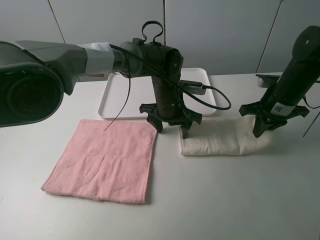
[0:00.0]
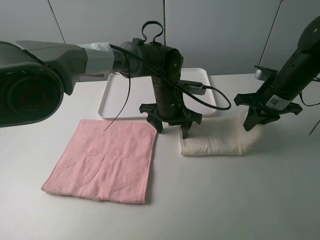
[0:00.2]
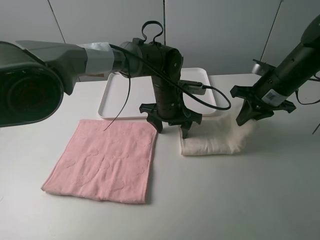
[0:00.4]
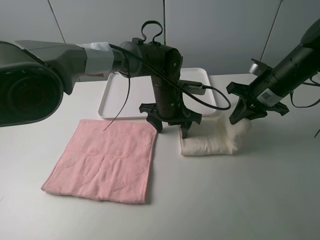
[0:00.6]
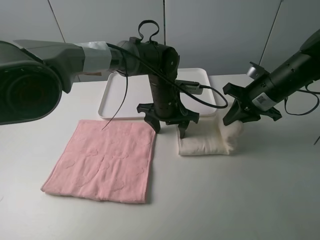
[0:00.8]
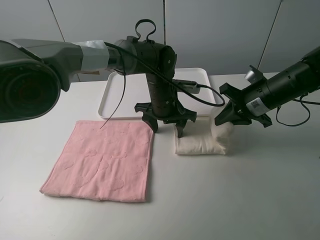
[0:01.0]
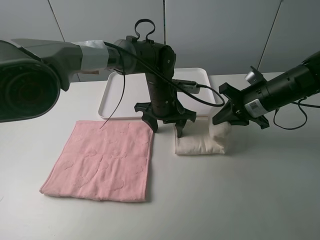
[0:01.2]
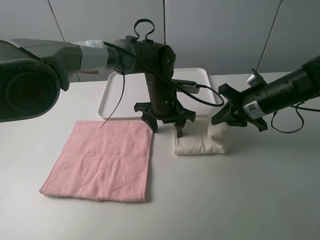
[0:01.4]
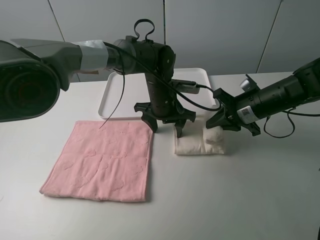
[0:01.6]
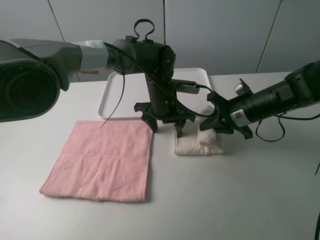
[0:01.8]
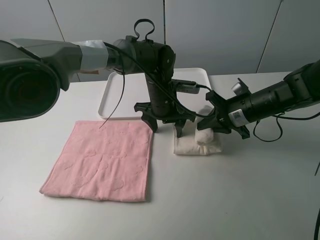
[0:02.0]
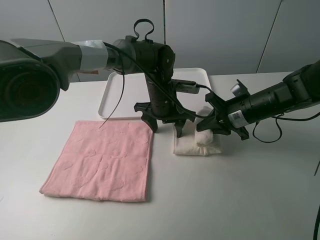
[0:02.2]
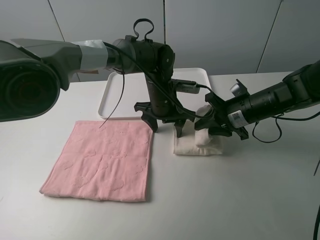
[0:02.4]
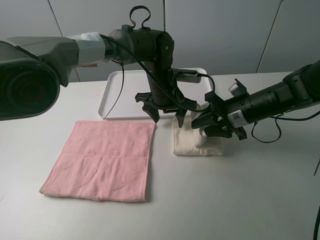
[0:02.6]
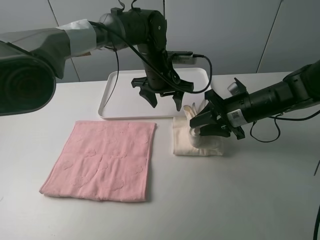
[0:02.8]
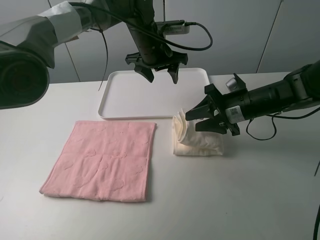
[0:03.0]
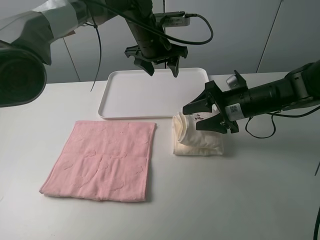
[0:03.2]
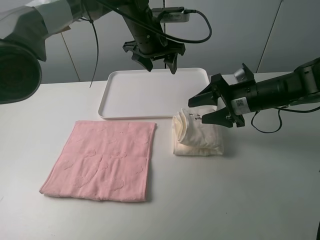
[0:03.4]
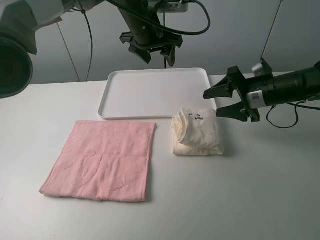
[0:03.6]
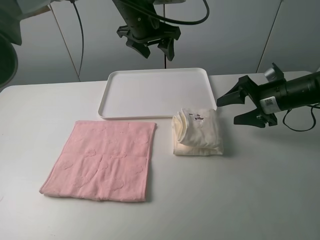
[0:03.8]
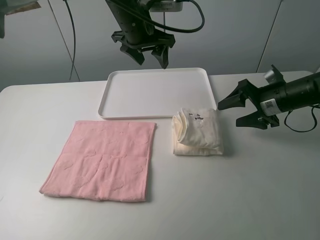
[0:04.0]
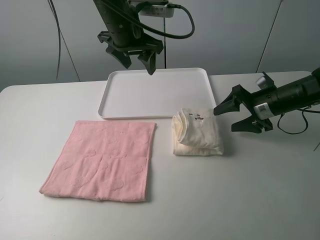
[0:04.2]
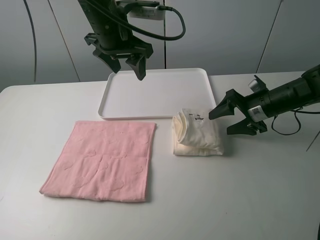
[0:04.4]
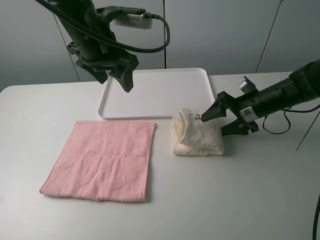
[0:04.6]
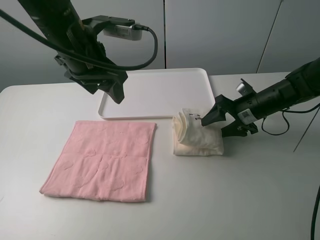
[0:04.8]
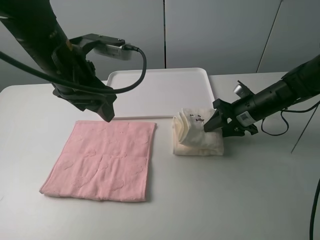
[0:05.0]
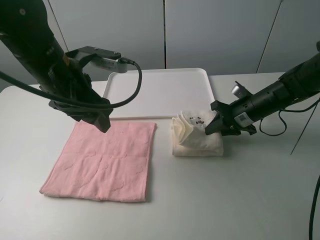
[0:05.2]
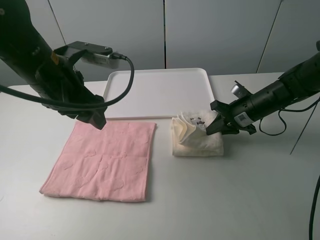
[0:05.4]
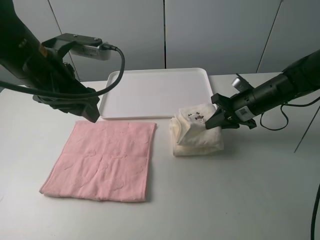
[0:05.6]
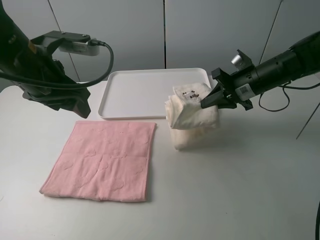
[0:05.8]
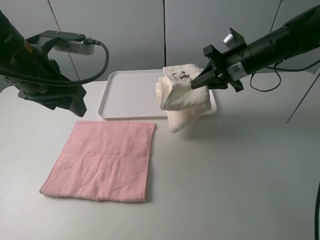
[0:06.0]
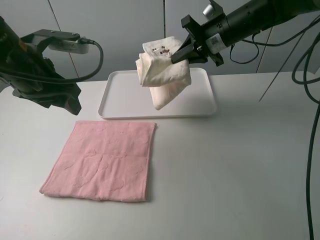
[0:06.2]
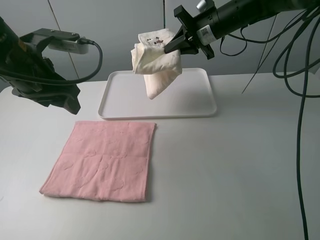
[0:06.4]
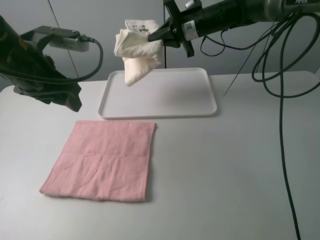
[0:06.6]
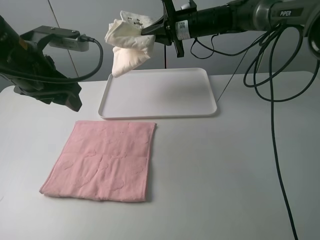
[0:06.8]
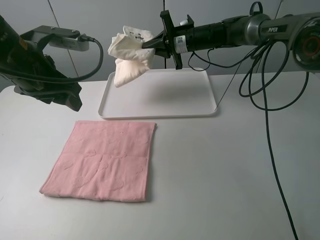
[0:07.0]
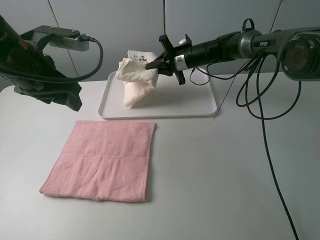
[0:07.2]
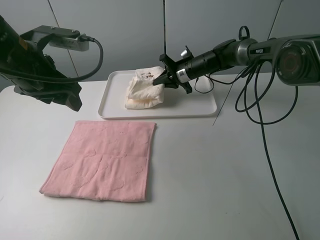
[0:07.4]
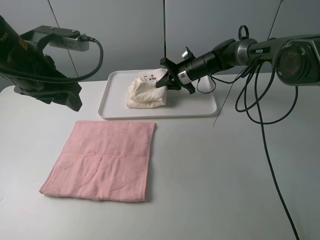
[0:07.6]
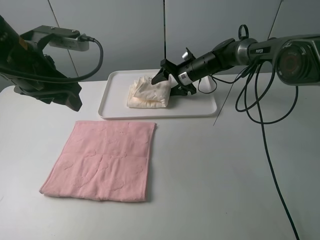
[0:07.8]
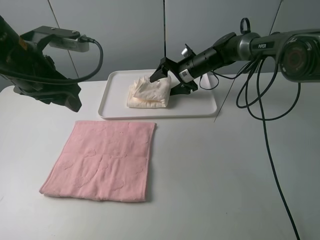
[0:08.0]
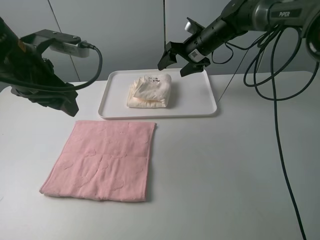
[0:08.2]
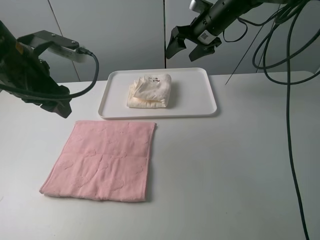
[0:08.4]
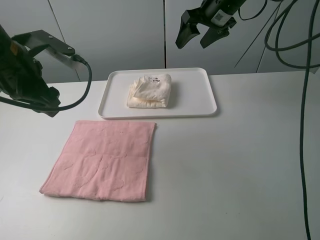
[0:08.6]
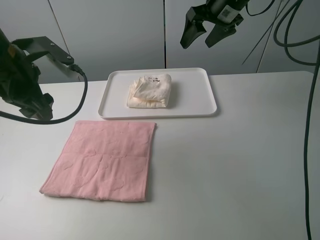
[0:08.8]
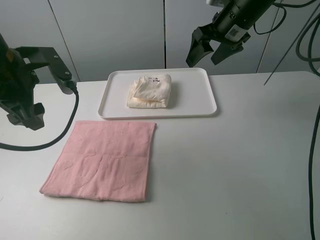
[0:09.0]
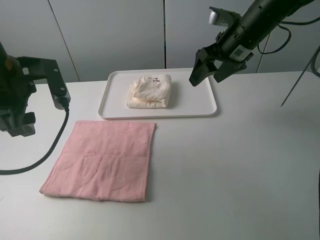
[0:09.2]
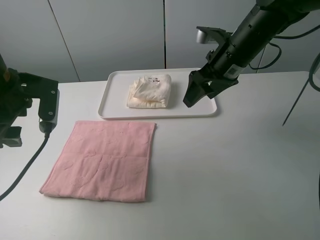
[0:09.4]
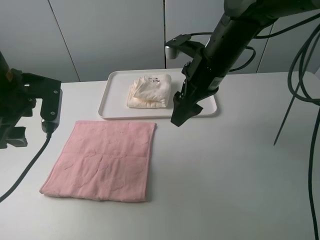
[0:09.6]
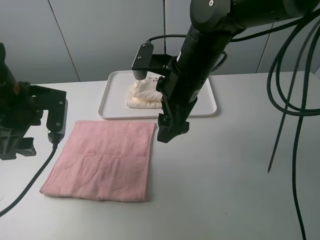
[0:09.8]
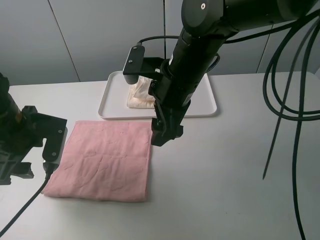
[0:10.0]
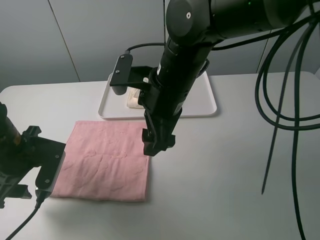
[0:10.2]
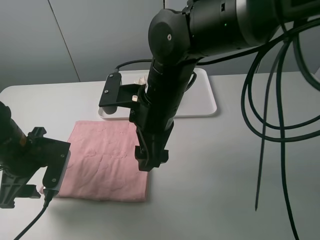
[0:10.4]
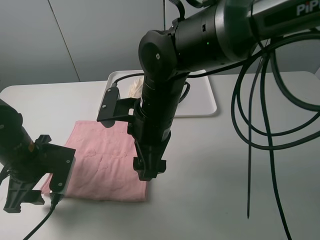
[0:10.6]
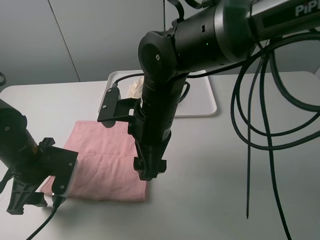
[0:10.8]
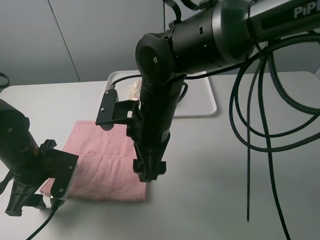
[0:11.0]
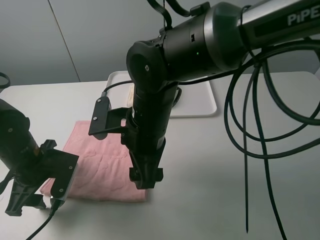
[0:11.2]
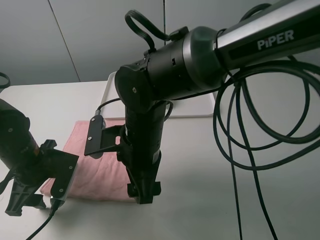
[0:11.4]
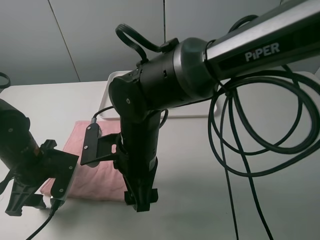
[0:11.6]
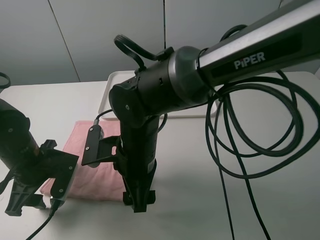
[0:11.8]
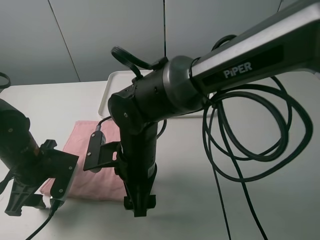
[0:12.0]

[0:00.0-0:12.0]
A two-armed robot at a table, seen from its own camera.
Task of the whole recording: fold one of the towels by two grippers and place it on the tray,then fold another towel by two grippers and place it on the folded towel.
Step, 0:00.0 to 0:03.0: Fold the white towel from right to left with right gripper.
Step, 0:03.2 to 0:05.2: Grasp the white towel with the right gripper.
Step, 0:05.4 to 0:08.0: Move the white towel to the plate with the right gripper.
0:00.0 to 0:01.6: The right gripper shifts roughly 5 cm to the left.
0:01.6 to 0:03.0: The right gripper opens up, while the left gripper shifts some 15 cm upward and forward.
0:03.0 to 0:04.4: The left gripper is displaced to the left, backward and upward by approximately 10 cm. The right gripper heads to the right, covering roughly 5 cm.
0:04.4 to 0:06.0: The right gripper heads upward and to the left, covering about 10 cm, and closes up. The left gripper is displaced to the left and backward by about 15 cm.
0:06.0 to 0:07.6: The right gripper is displaced forward, downward and to the left by roughly 20 cm.
0:07.6 to 0:09.0: The right gripper moves upward and backward, approximately 20 cm, and opens up.
0:09.0 to 0:10.4: The left gripper is displaced downward and backward by roughly 15 cm, while the right gripper shifts some 25 cm to the left, backward and downward.
0:10.4 to 0:12.0: The right gripper moves downward, approximately 10 cm.

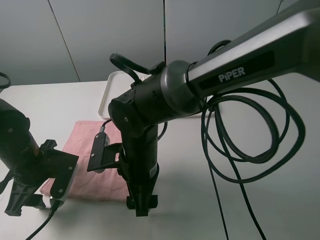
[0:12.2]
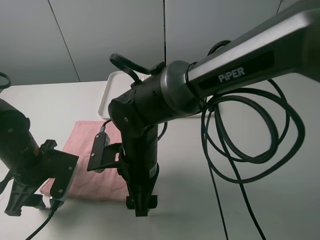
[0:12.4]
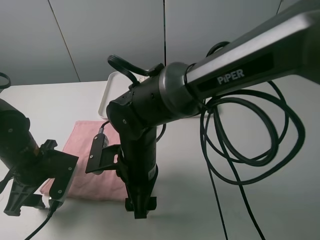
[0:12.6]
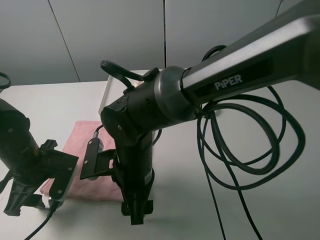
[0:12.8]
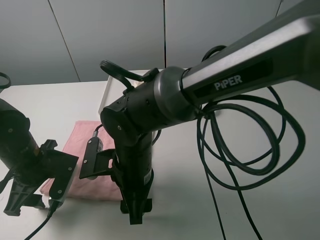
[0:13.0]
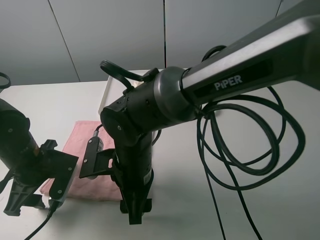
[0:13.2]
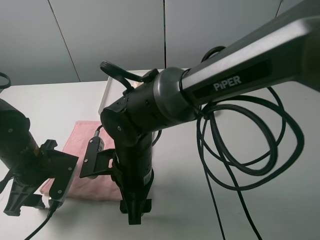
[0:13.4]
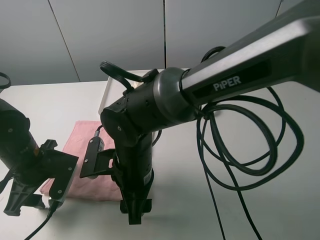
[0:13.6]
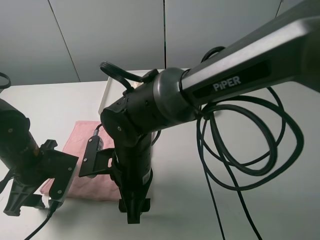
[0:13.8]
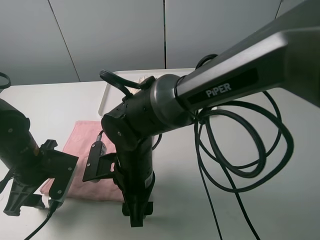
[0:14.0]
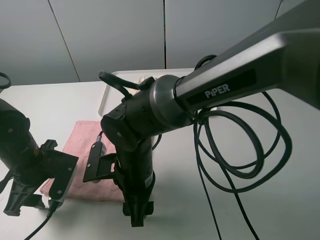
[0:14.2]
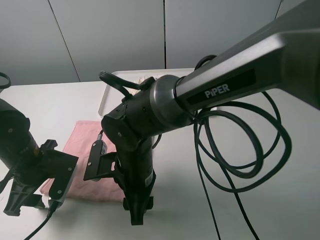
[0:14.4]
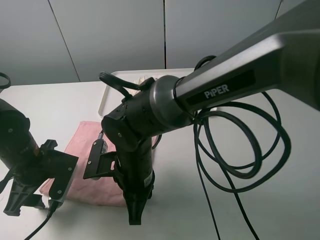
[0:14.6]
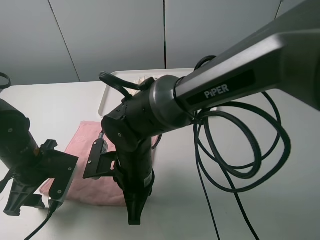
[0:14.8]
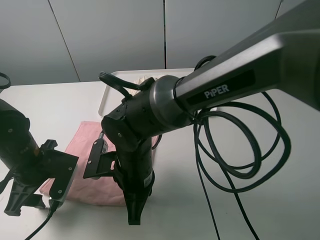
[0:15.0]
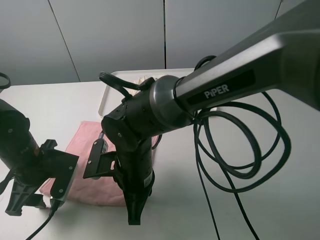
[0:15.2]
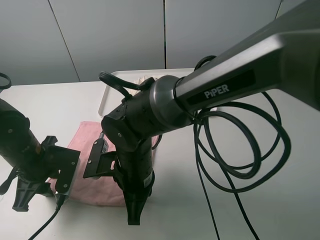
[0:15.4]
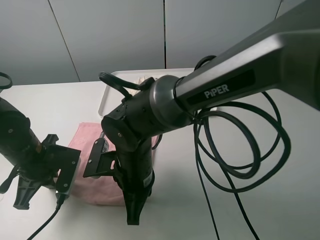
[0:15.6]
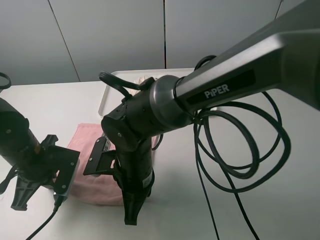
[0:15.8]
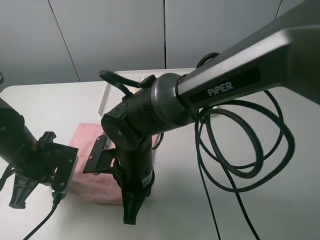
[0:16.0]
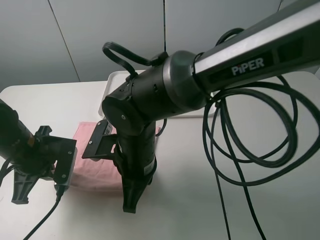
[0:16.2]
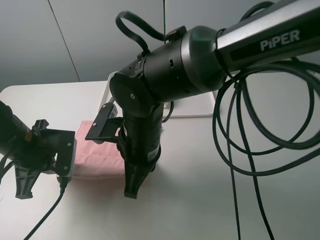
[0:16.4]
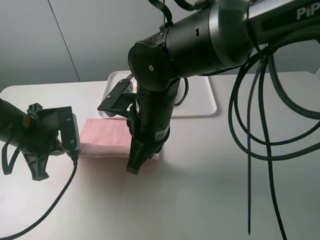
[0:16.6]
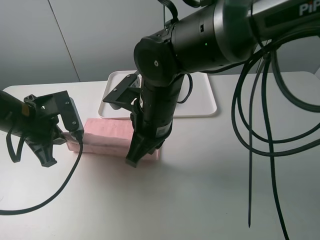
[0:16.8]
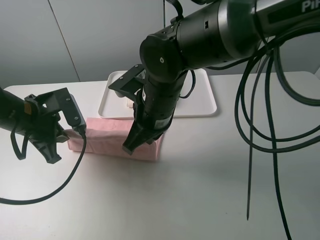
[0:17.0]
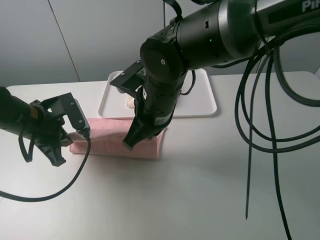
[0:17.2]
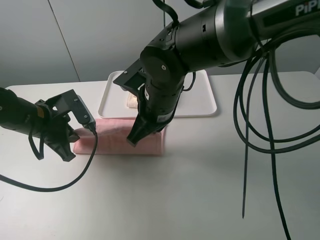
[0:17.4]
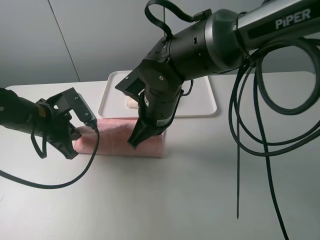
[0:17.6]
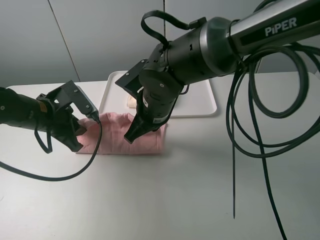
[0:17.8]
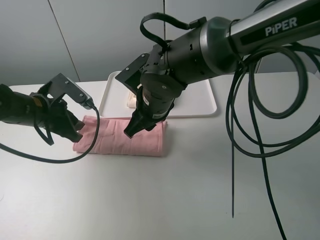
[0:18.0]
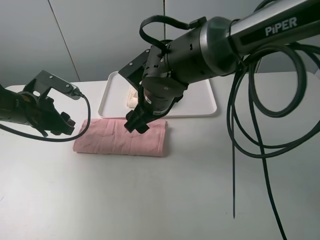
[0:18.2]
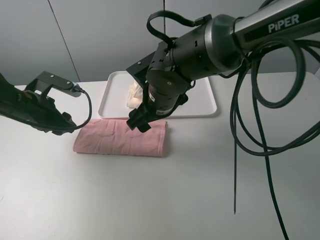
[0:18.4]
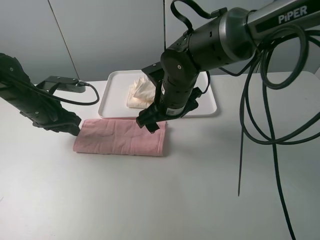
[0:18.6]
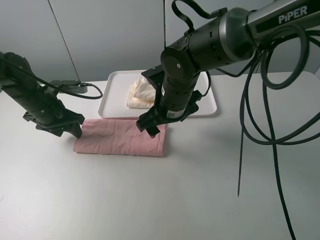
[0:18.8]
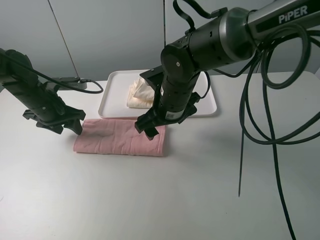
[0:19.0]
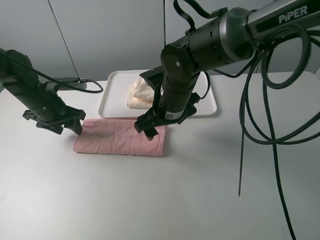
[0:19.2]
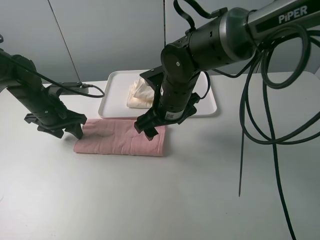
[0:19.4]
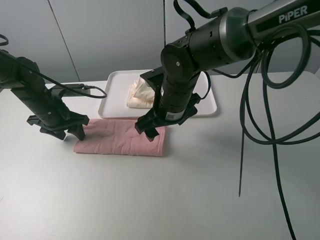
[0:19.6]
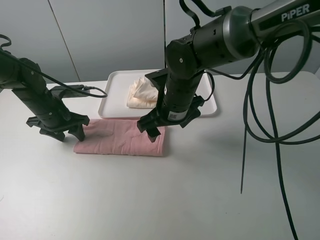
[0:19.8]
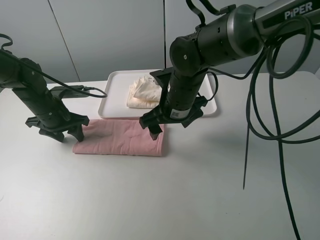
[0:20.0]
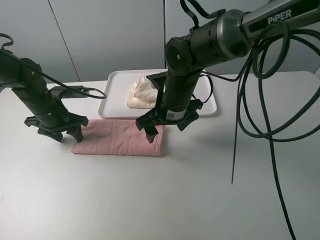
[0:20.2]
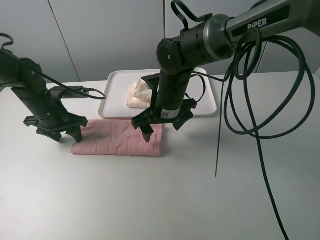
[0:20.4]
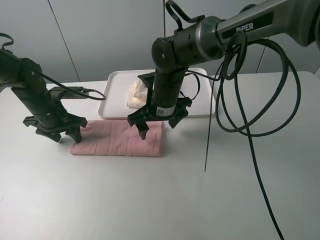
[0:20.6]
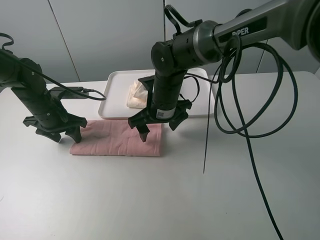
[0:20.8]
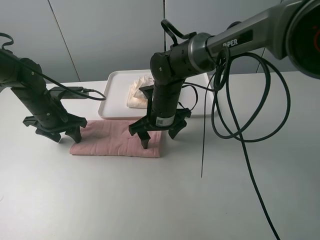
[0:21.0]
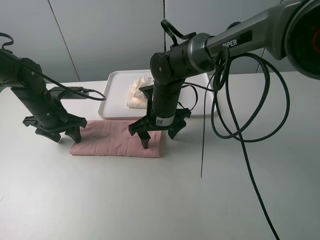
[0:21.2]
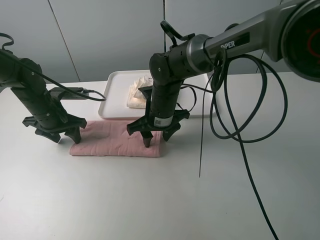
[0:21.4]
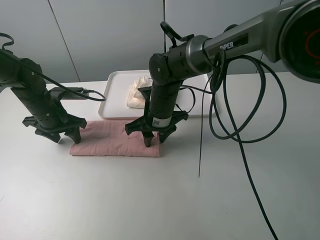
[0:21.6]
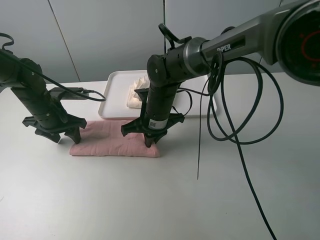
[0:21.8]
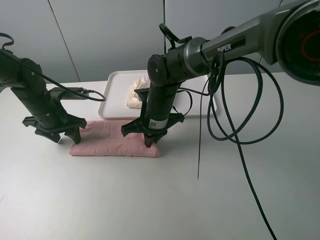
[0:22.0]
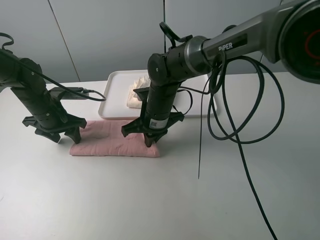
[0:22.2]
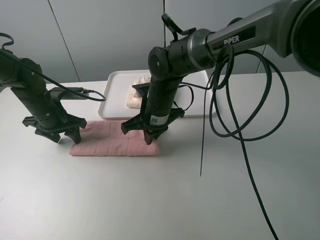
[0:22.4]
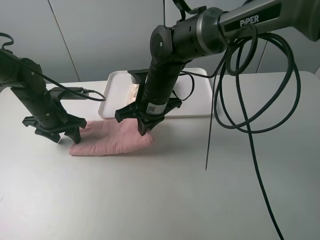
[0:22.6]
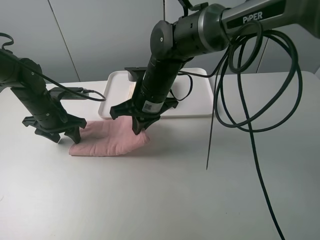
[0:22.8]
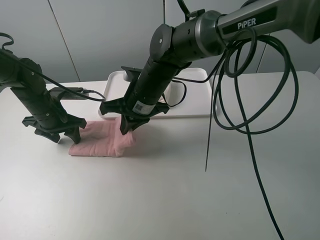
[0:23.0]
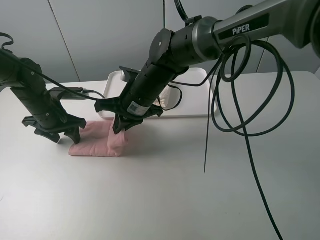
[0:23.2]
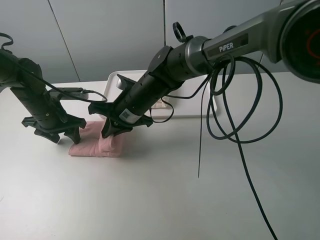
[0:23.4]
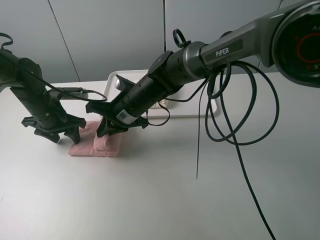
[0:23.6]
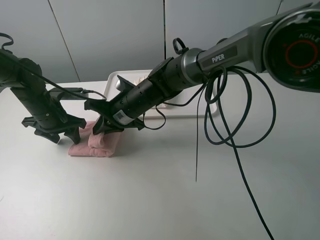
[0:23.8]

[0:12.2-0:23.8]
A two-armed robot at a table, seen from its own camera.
Task of the whole recording: fold one of the towels by two grippers and place it on the tray,then fold another towel by two grippers and place it on the folded towel.
Step, 0:12.2 to 0:15.6: Grasp the pink towel with the left gripper.
Step, 0:15.8 to 0:18.2: Fold the pink towel upwards with the left gripper.
Step, 0:18.6 to 0:20.0: Press the pink towel with the left gripper.
Step, 0:20.2 to 0:21.8: Grasp the pink towel with the right gripper.
0:13.6 to 0:15.0: The right gripper closes.
0:15.0 to 0:16.6: Both grippers travel together upward, approximately 5 cm. The left gripper closes its fingers.
0:16.6 to 0:18.0: The right gripper goes roughly 5 cm forward, and opens. The left gripper changes place by some 5 cm, and opens up.
0:18.0 to 0:19.4: The left gripper moves forward, some 5 cm, while the right gripper opens up.
0:19.4 to 0:21.0: The right gripper is displaced downward by about 5 cm.
0:21.0 to 0:22.4: The right gripper closes its fingers.
0:22.4 to 0:23.8: The right gripper heads to the left, covering approximately 5 cm.
